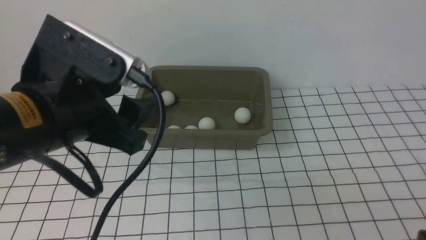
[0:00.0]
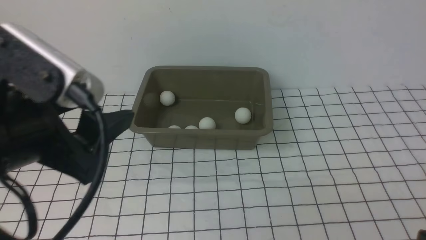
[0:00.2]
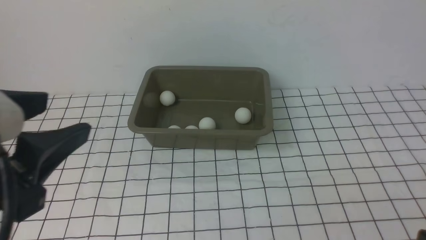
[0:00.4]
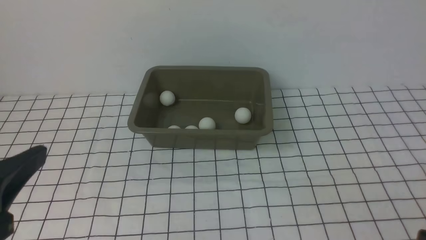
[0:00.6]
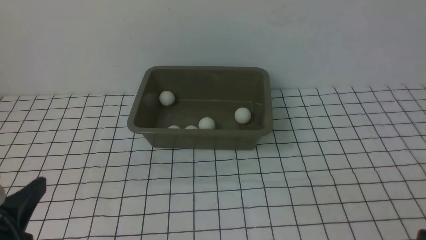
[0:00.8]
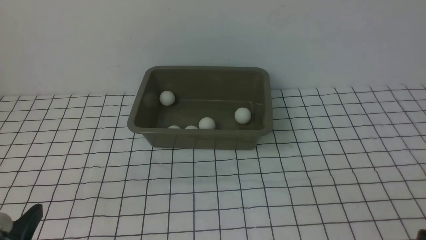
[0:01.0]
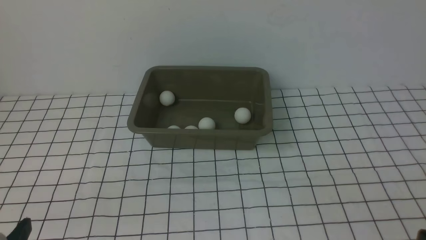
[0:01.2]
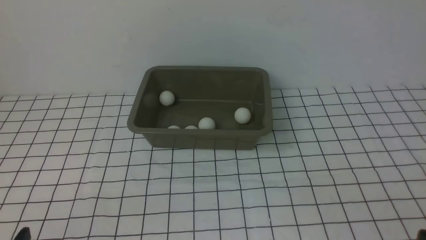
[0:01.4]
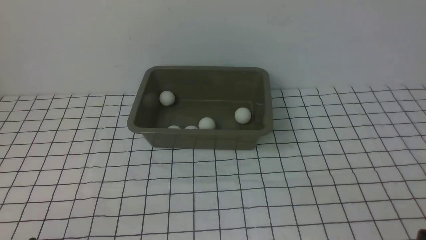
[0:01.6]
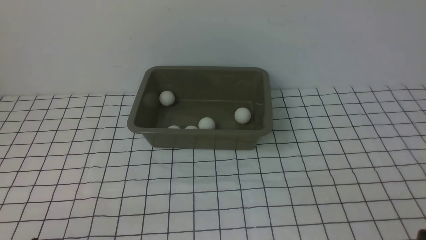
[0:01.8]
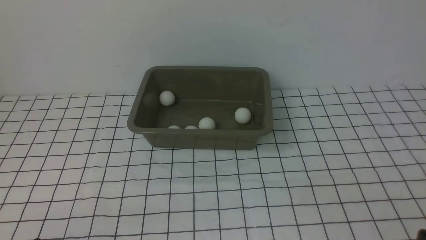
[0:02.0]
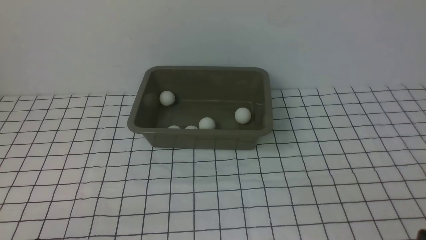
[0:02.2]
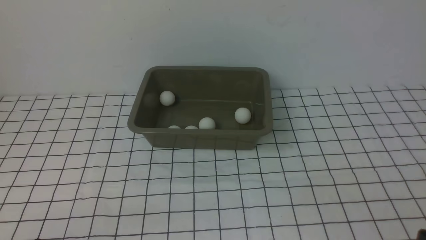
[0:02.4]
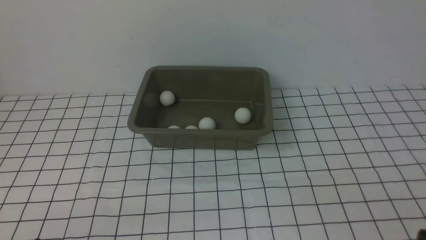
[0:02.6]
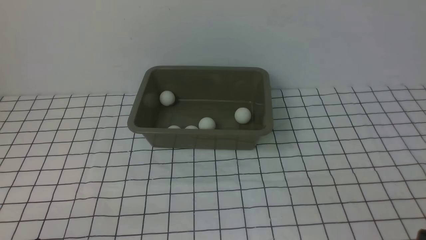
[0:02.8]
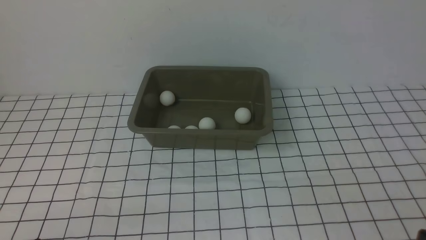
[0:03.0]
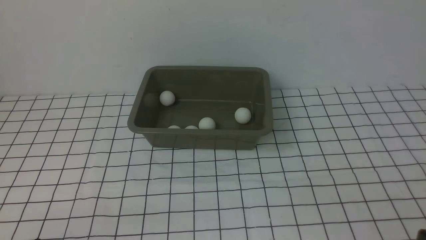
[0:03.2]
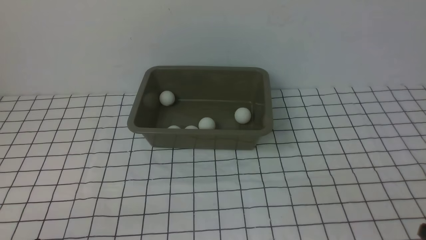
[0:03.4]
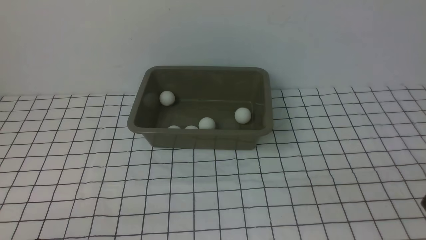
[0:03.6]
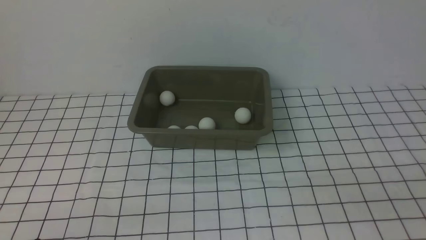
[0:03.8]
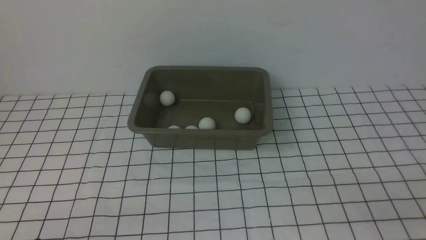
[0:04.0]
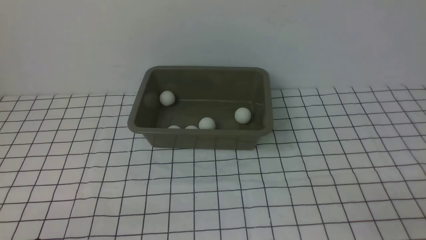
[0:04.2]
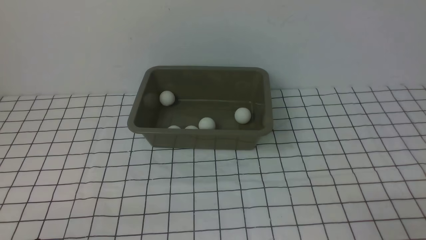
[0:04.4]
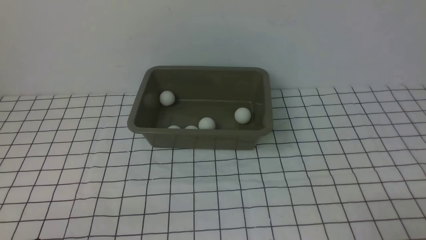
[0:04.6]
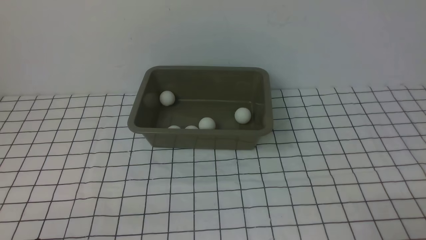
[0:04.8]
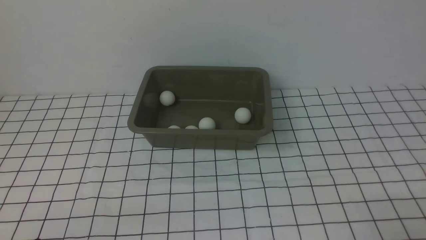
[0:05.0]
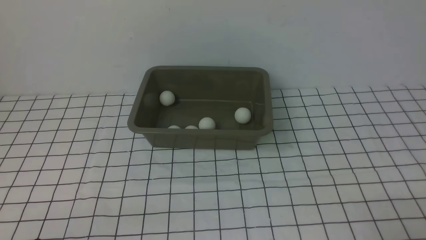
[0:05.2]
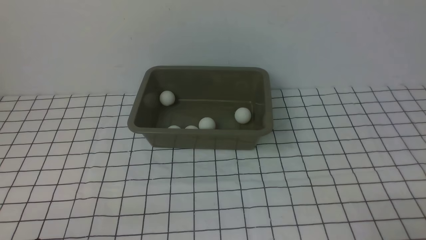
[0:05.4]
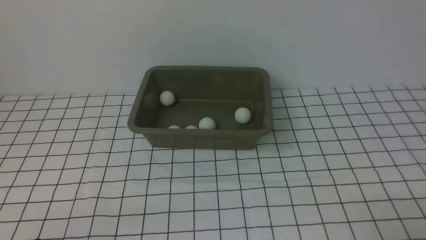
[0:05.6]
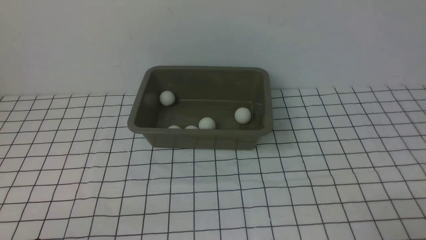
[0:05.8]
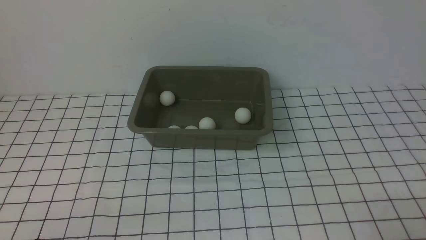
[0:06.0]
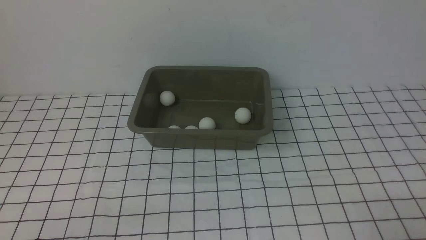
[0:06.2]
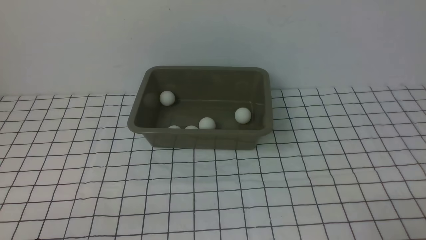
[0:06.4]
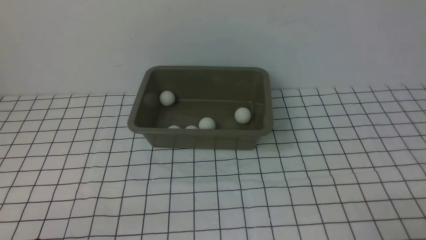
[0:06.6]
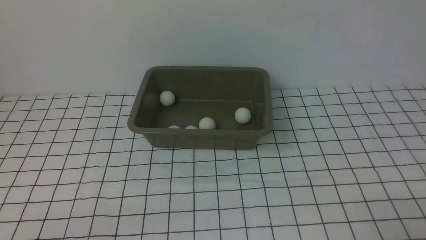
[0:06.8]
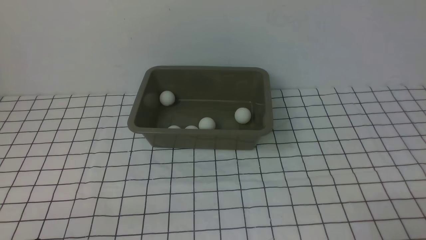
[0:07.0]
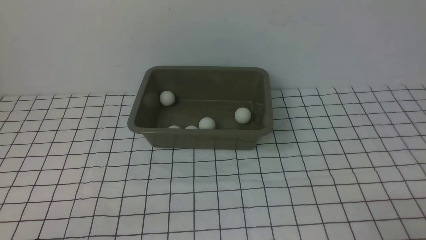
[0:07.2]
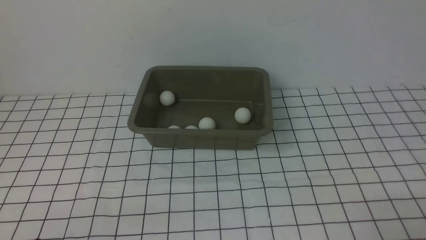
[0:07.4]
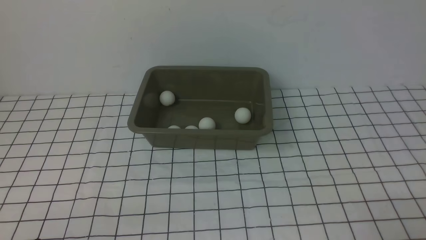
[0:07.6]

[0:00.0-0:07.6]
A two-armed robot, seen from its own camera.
0:00.0 to 0:01.6: The left gripper is displaced downward, backward and to the left by approximately 25 cm.
0:01.6 to 0:03.0: The two grippers keep their place.
0:04.6 to 0:07.6: Neither gripper changes place.

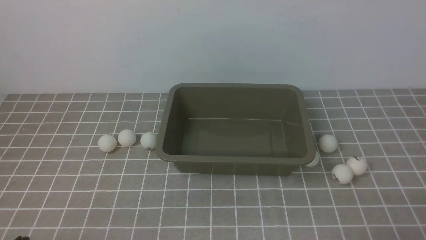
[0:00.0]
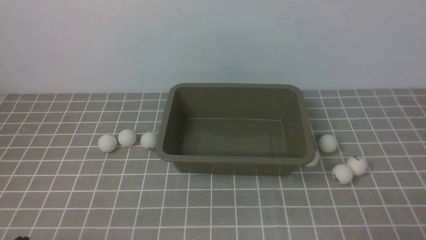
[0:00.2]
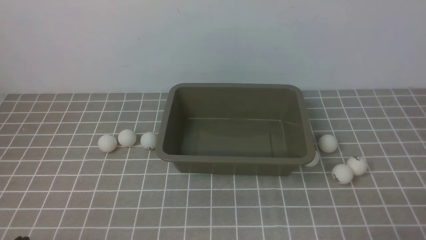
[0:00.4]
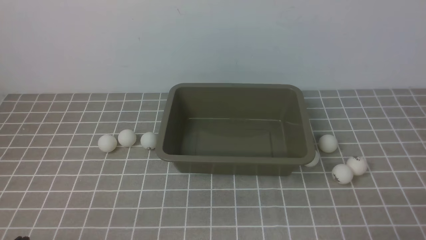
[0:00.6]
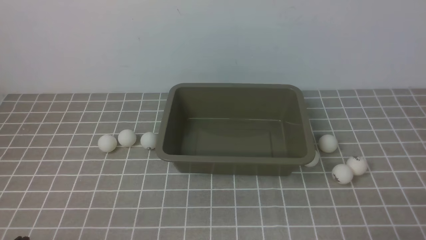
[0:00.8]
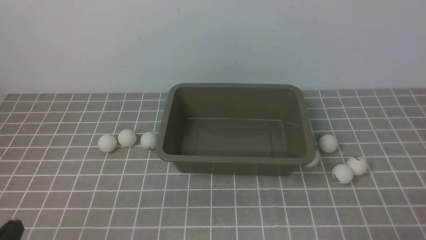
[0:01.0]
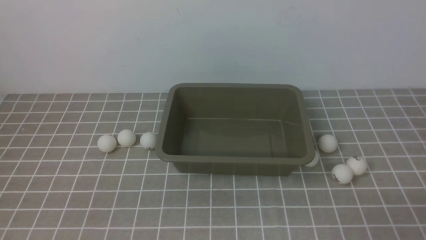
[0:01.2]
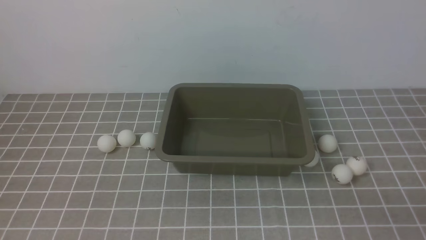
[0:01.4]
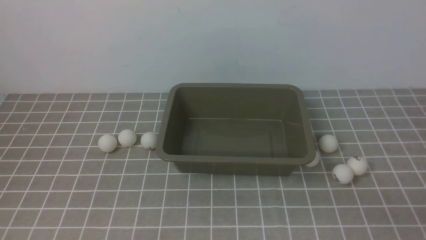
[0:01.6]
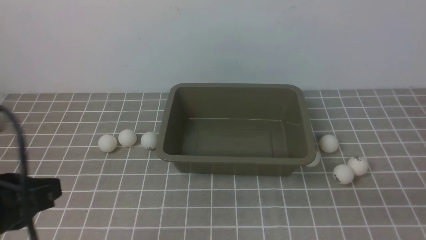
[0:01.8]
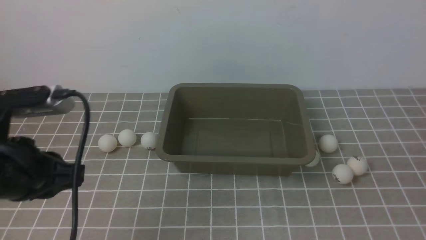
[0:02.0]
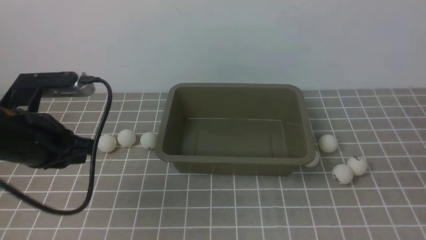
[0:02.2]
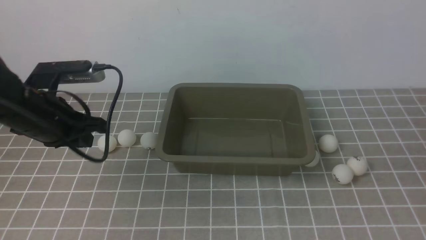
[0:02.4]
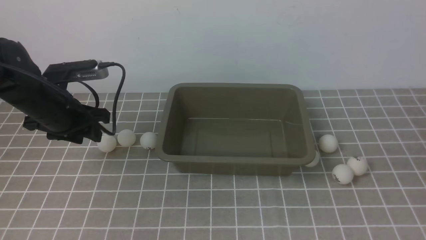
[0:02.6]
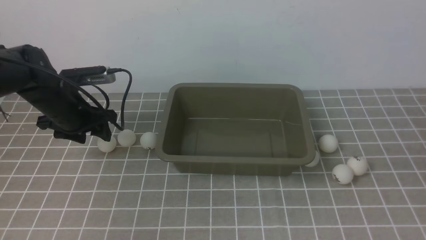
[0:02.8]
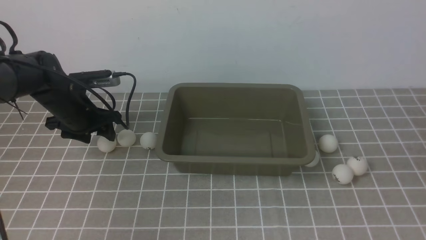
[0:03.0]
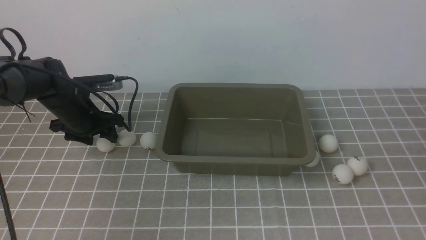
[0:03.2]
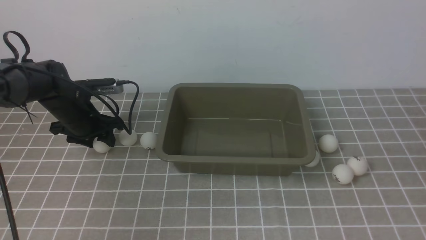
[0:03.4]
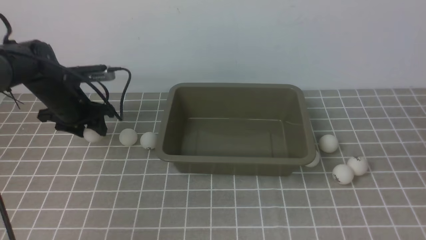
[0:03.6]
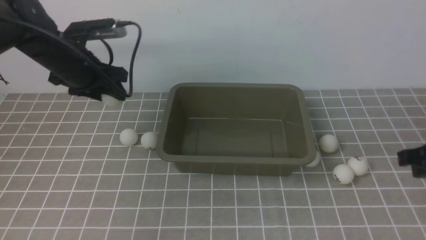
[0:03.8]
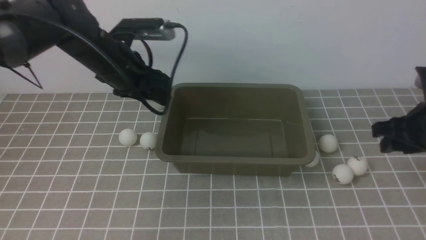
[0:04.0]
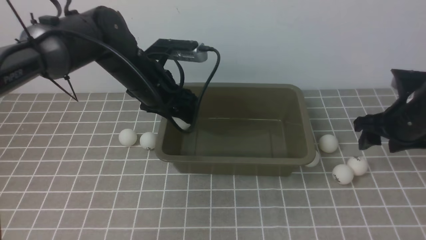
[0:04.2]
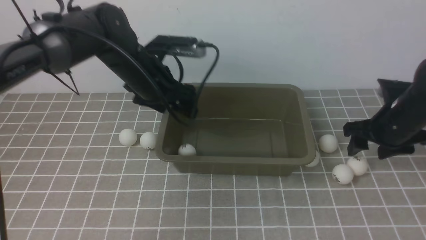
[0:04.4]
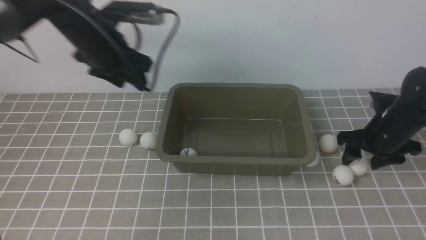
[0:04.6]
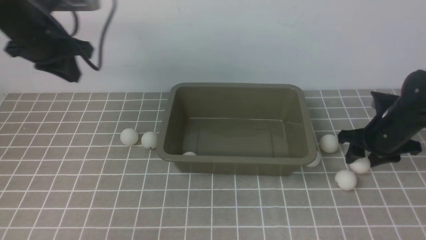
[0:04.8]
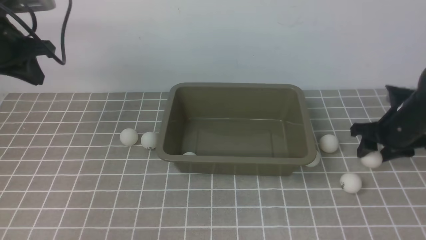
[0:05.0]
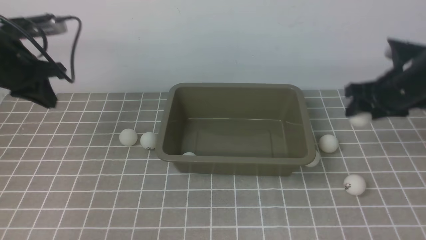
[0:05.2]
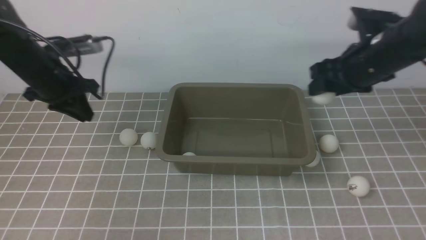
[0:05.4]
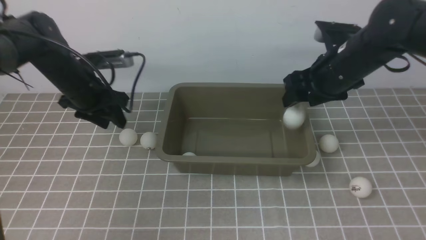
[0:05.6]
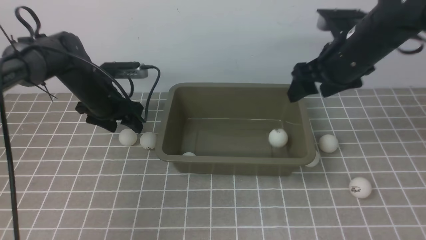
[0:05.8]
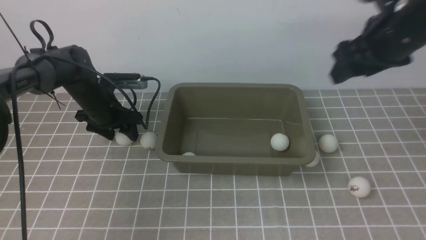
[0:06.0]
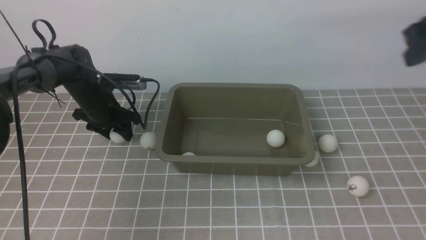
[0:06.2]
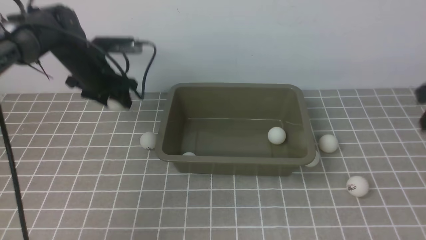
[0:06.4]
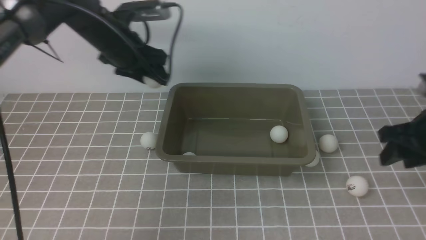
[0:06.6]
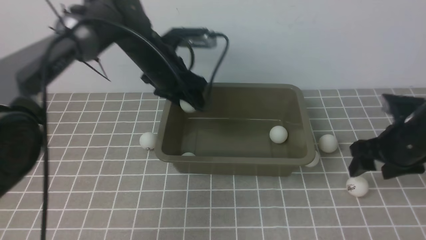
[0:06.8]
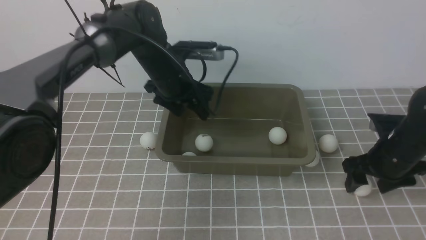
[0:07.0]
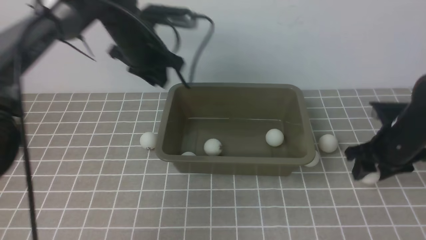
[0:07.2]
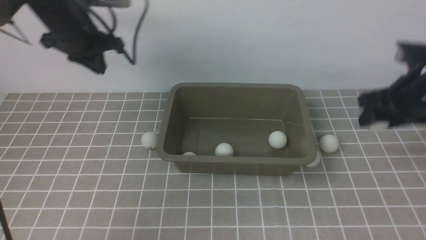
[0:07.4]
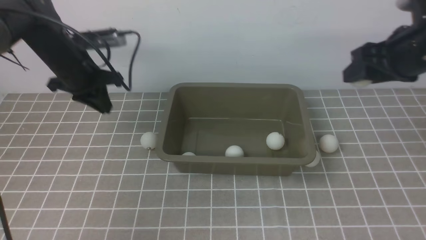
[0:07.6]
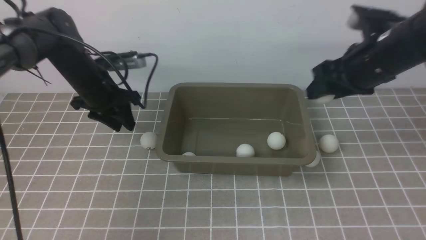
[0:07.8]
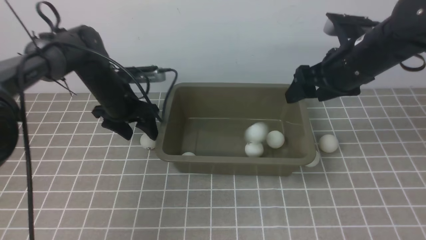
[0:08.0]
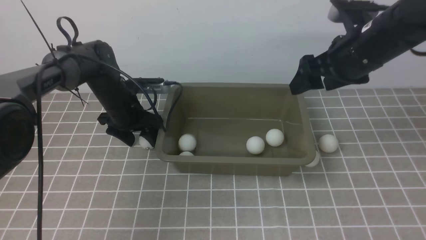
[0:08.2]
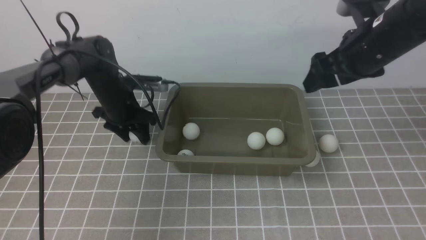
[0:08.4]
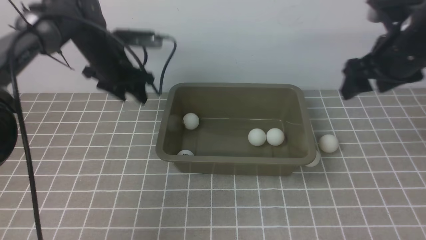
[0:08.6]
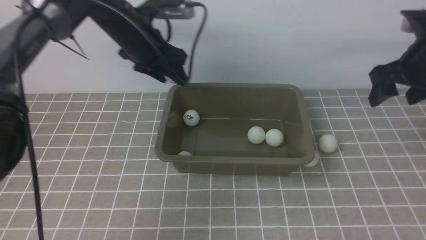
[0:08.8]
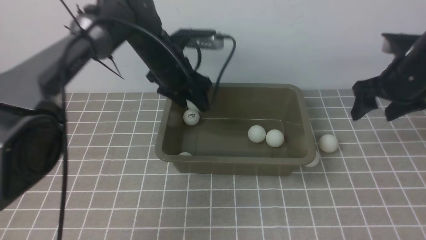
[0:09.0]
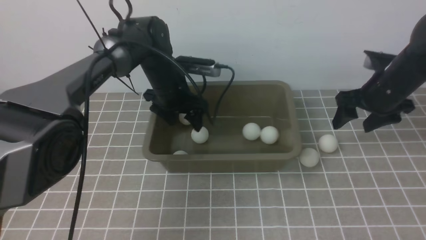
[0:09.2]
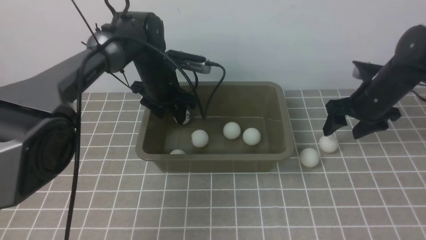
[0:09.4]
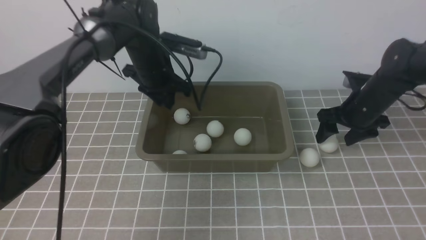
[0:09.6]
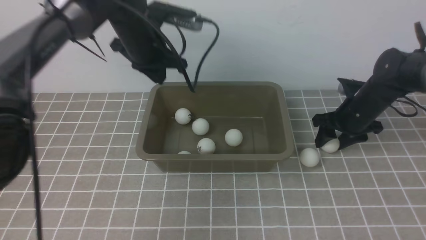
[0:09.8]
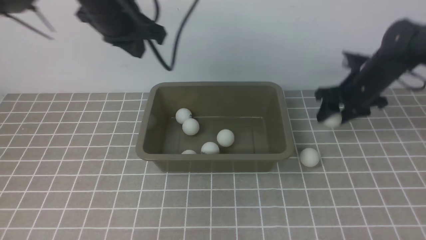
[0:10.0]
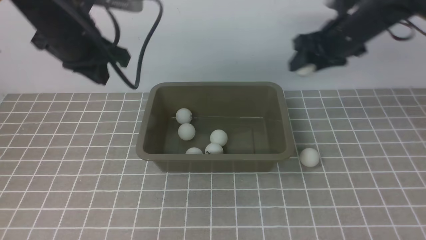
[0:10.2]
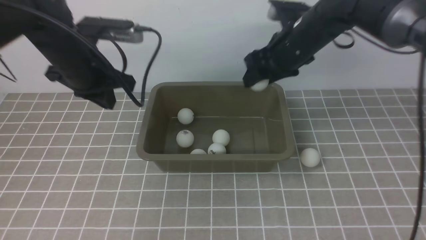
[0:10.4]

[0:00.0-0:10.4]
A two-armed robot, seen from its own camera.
Step, 0:00.0 to 0:03.6: use the left arm to clamp the table tennis ball closest to it.
Step, 0:04.0 to 0:04.4: use the left arm to put the table tennis ball into the box.
Step, 0:04.6 to 0:05.2: use the right arm to clamp the table tennis ball closest to it.
Step, 0:05.4 to 0:05.8: use the right arm to put the table tennis ball into the box.
Step, 0:06.0 to 0:06.6: use the left arm to clamp the table tennis ball closest to it.
Step, 0:06.8 to 0:07.0: use the left arm to put the table tennis ball into the box.
Step, 0:07.2 to 0:07.4: use the right arm to clamp the table tennis ball closest to it.
Step, 0:07.8 to 0:08.0: use the right arm to put the table tennis ball into the box.
Step, 0:08.8 to 0:09.0: use the left arm to put the table tennis ball into the box.
Step, 0:09.2 to 0:10.0: use the right arm to clamp the table tennis ball closest to it.
0:01.4 to 0:03.0: The left gripper heads forward, covering some 35 cm, and opens; the right gripper is displaced upward by some 15 cm.
0:03.0 to 0:04.4: The left gripper moves to the right and upward, some 15 cm. The right gripper travels forward and downward by some 30 cm, and opens its fingers.
0:04.4 to 0:06.0: The right gripper goes approximately 15 cm upward. Meanwhile the left gripper shifts approximately 15 cm downward and to the left, and closes, then reopens.
0:06.0 to 0:07.4: The left gripper goes about 15 cm upward, and closes its fingers. Meanwhile the right gripper is displaced downward by roughly 10 cm.
0:07.4 to 0:09.0: The right gripper goes approximately 5 cm forward, and reaches about 5 cm to the left, then returns; the left gripper goes approximately 10 cm to the right and downward, and opens its fingers.
0:09.0 to 0:10.4: The right gripper is displaced to the left by approximately 15 cm. The left gripper shifts approximately 15 cm to the left, backward and upward, and closes its fingers.
